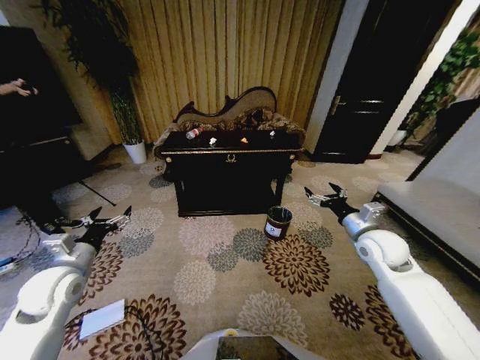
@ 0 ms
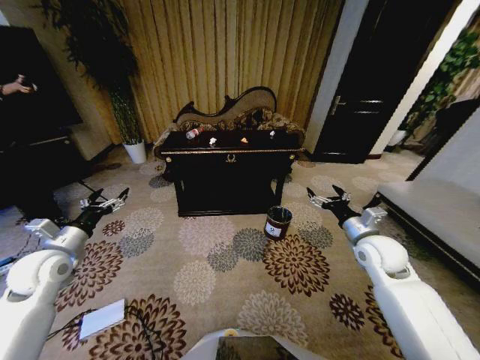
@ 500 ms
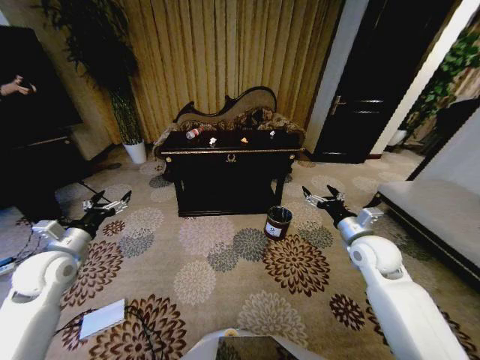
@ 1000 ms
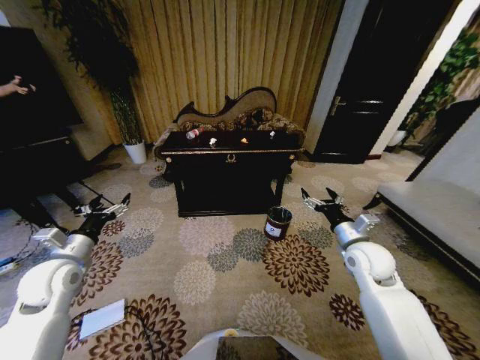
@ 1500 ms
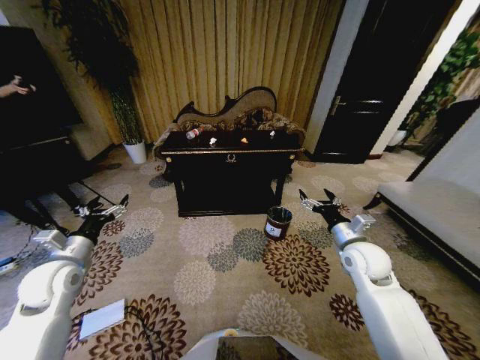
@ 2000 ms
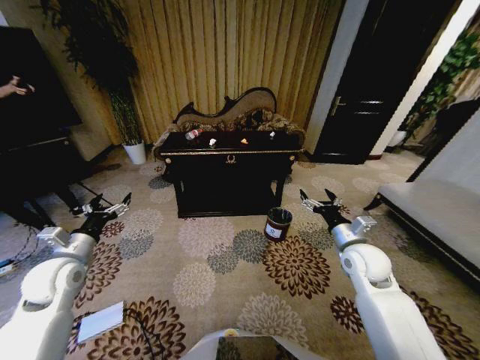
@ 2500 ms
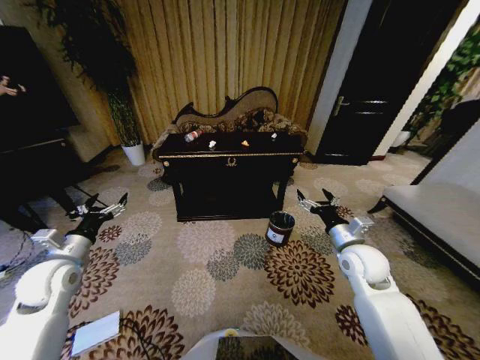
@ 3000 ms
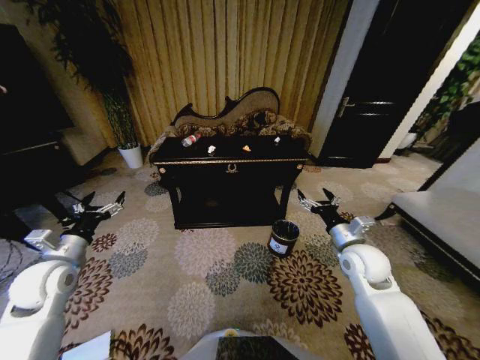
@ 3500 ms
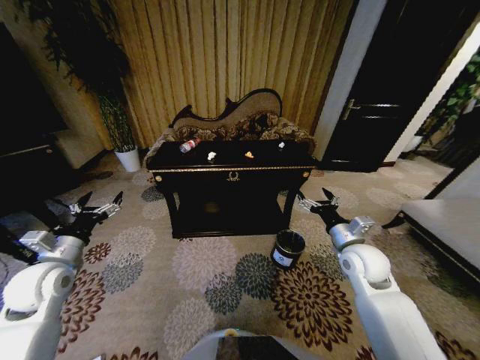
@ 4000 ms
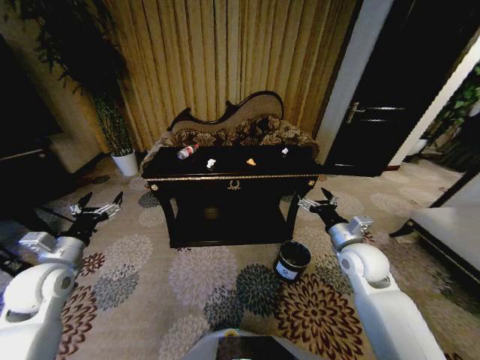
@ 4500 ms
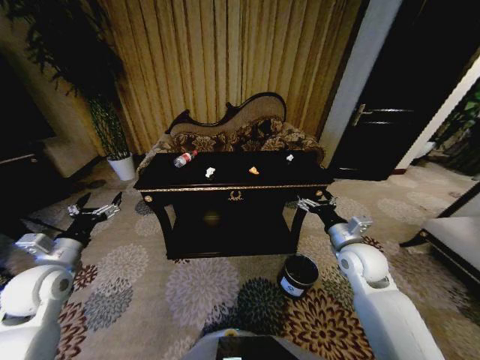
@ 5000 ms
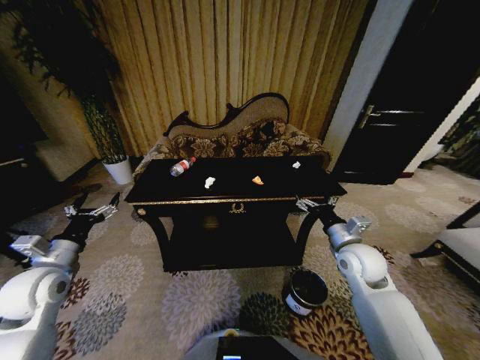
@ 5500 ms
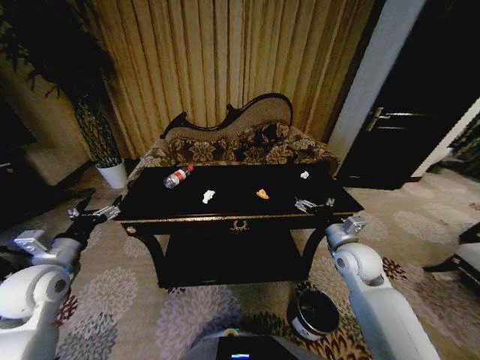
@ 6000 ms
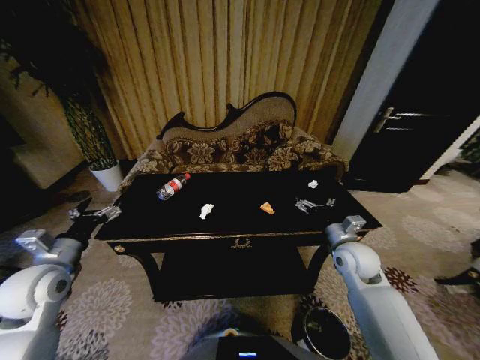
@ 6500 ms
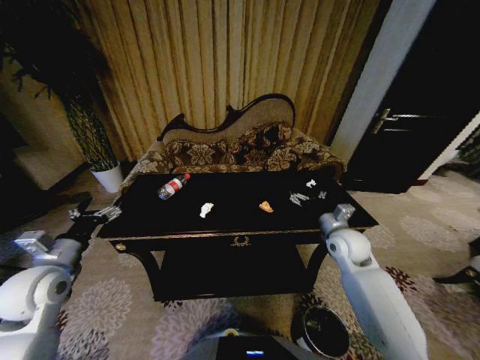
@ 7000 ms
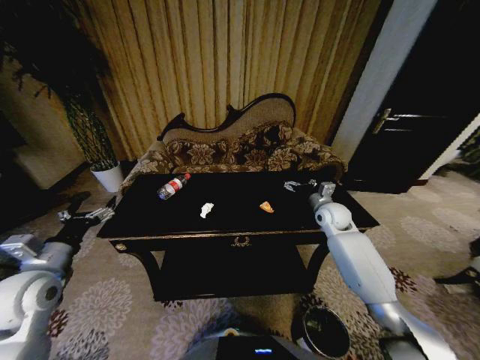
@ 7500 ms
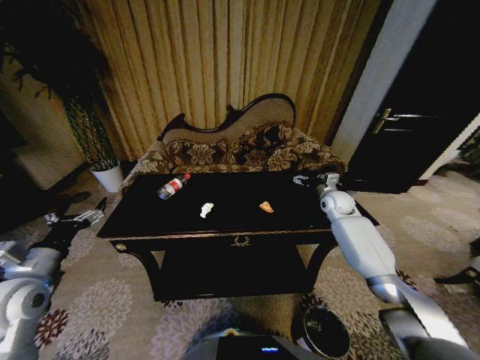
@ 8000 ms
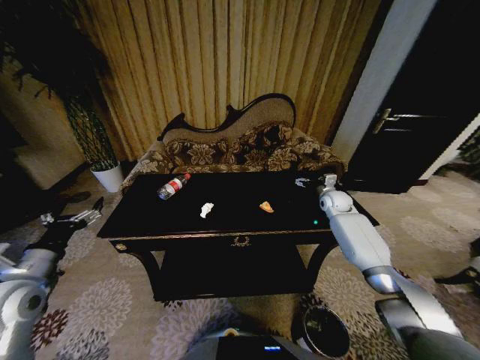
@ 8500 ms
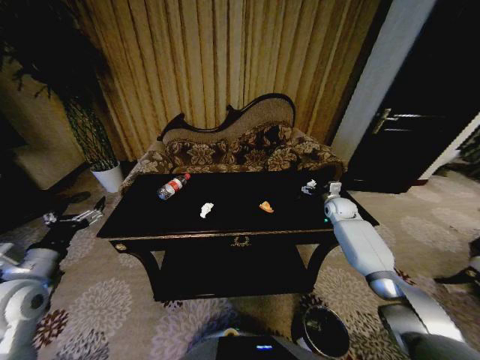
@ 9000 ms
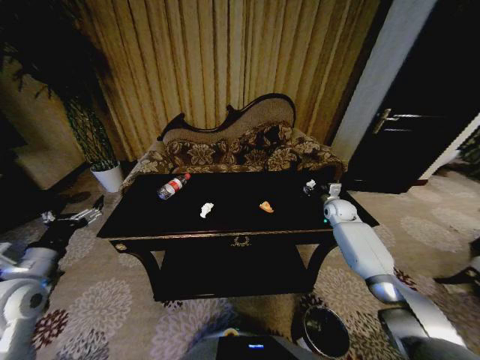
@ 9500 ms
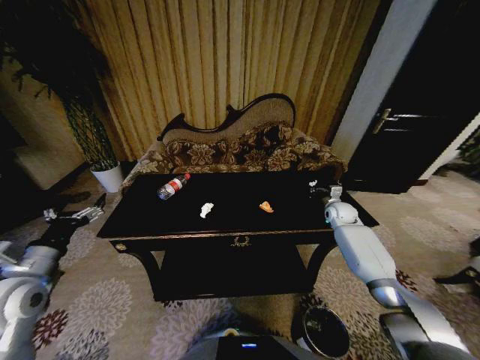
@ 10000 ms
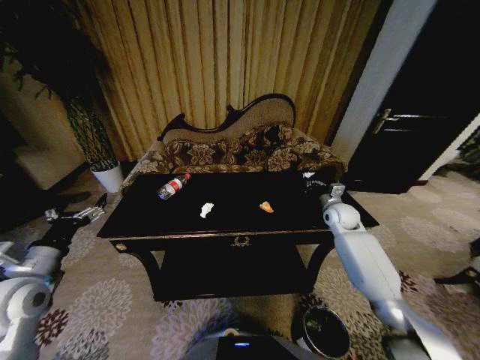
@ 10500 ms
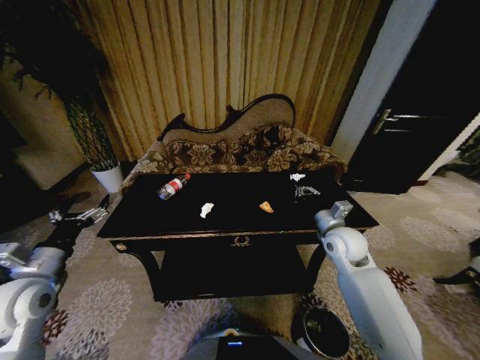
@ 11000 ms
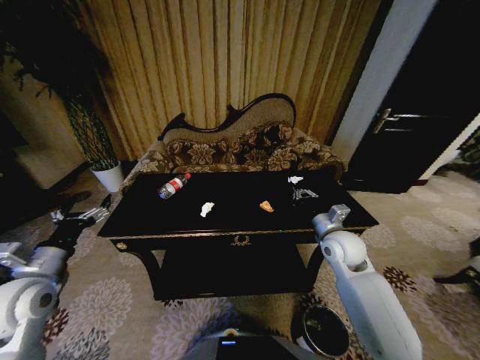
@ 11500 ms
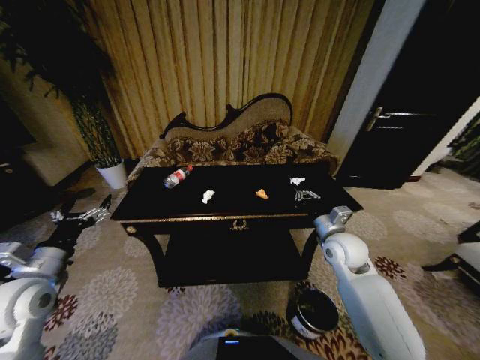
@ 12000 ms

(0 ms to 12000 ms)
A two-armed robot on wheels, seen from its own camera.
Task of the whole recording: Move to the front of the table and place the trash on the table into the trash bin.
6000 ms - 8000 ms: The right gripper goes approximately 20 cm forward.
8000 ms - 10000 ms: The right gripper is displaced downward by roughly 5 cm, and closes up.
10000 ms - 12000 ms: The right gripper travels backward and to the left by about 20 cm.

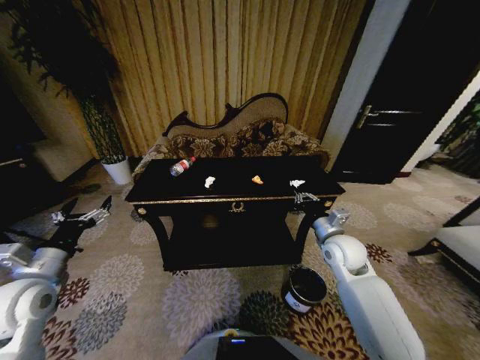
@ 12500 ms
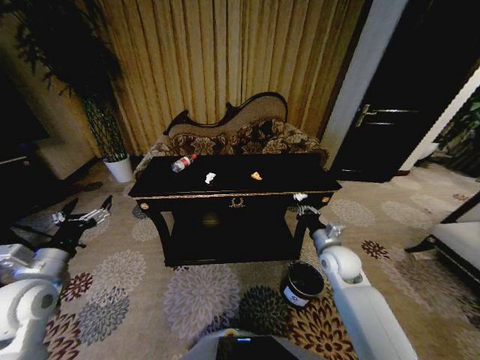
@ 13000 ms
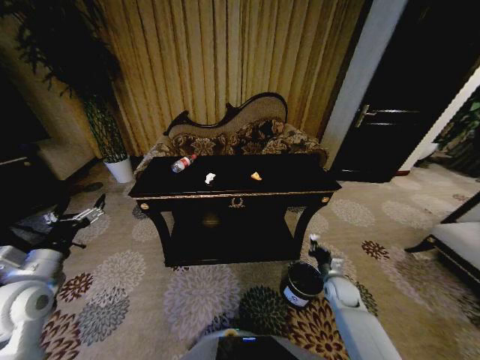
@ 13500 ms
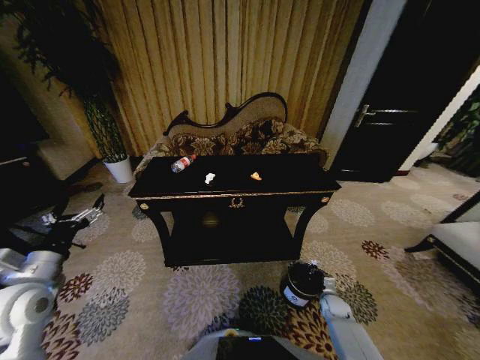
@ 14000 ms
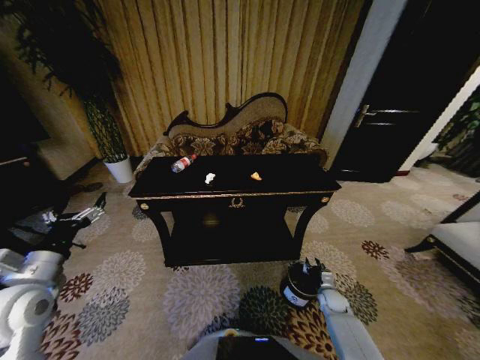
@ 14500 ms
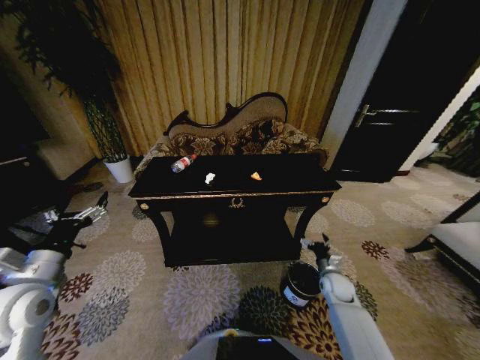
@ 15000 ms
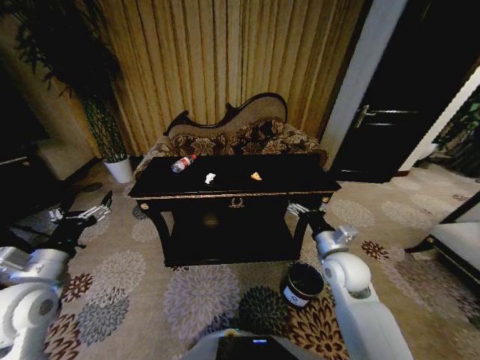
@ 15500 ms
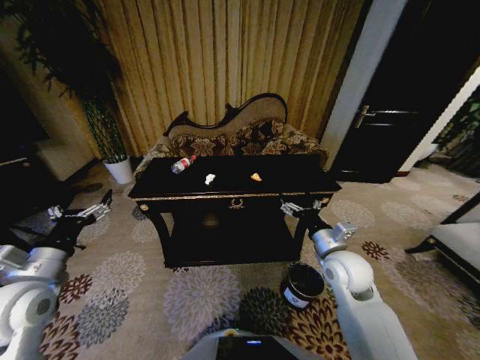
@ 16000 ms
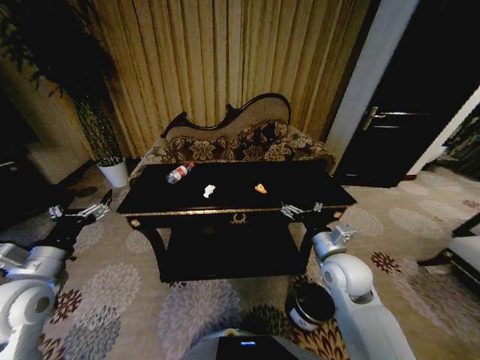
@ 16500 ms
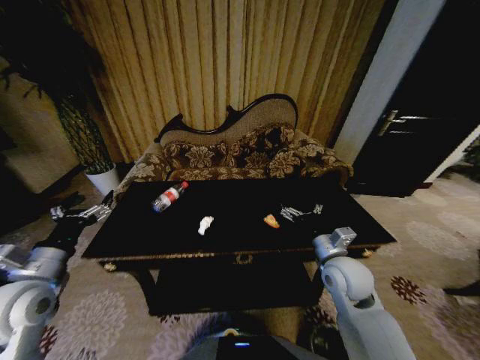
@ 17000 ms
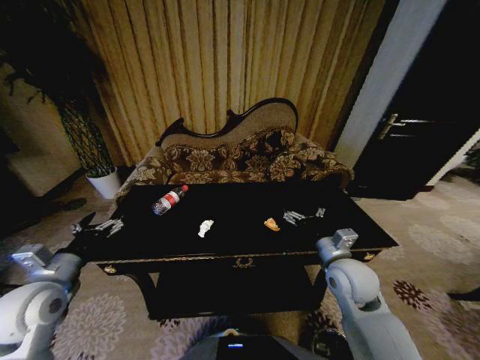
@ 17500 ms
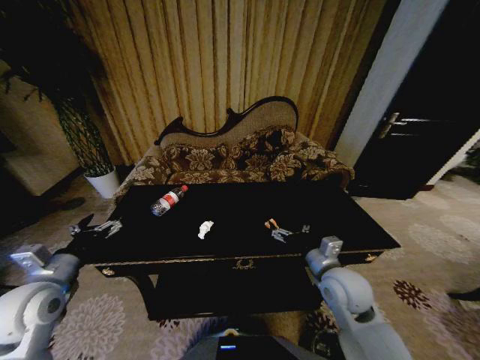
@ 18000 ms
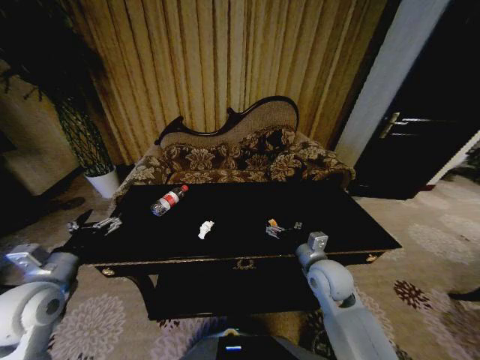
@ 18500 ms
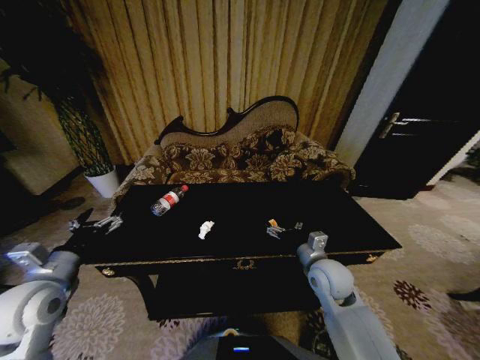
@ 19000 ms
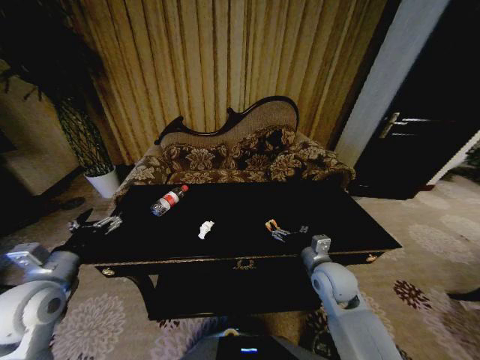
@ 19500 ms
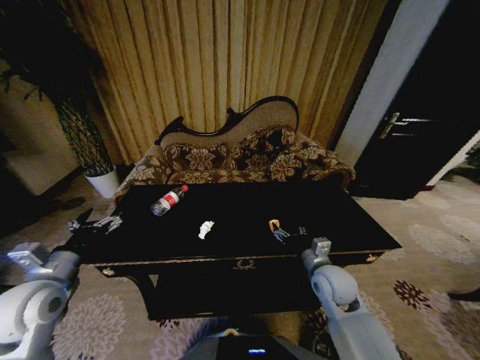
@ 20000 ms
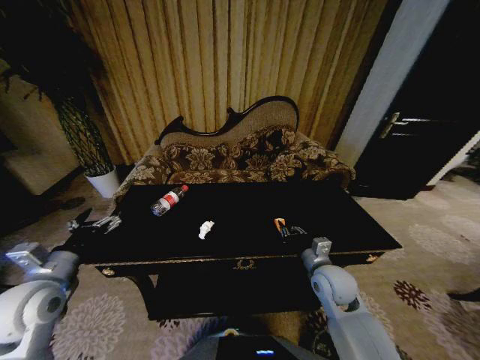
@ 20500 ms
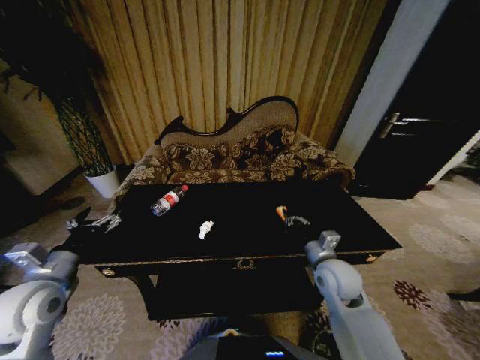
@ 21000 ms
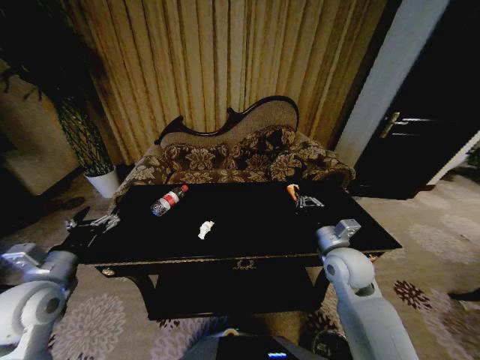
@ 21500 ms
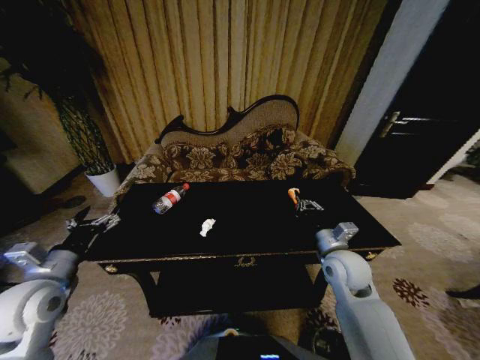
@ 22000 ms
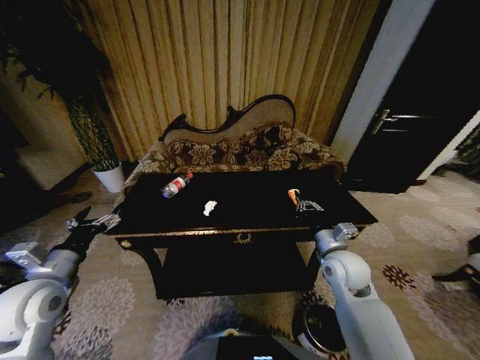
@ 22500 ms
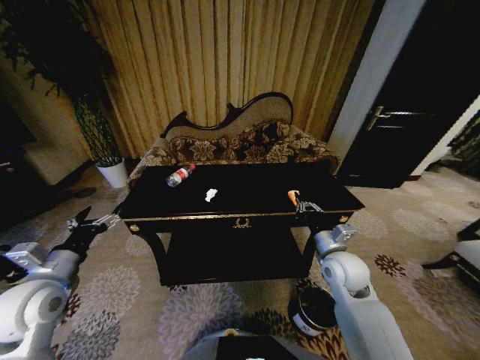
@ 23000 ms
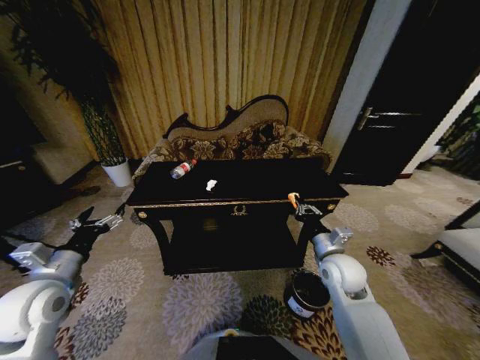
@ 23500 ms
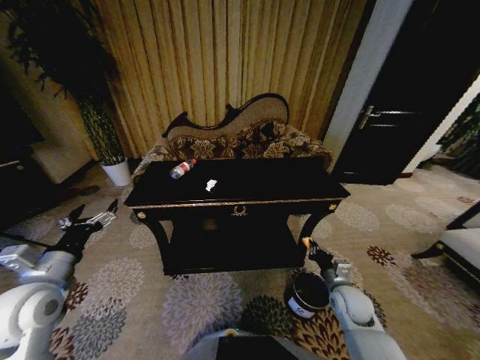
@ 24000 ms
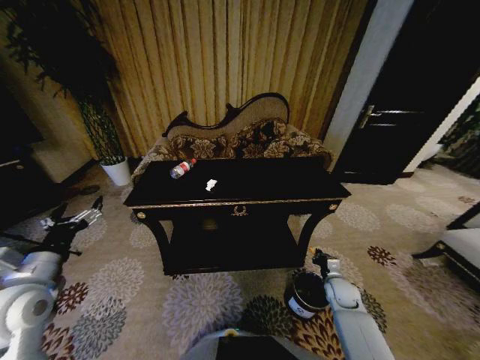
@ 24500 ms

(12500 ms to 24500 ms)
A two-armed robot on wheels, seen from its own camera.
Task of the whole recording: Move to the front of the table and place the trash on the table into the trash bin.
12500 ms - 14500 ms: The right gripper shifts some 30 cm downward, and opens.
14500 ms - 16500 ms: The right gripper heads upward, covering roughly 30 cm, and opens up.
18500 ms - 20500 ms: The right gripper closes up.
20500 ms - 22500 ms: The right gripper shifts by some 5 cm.
22500 ms - 24500 ms: The right gripper heads downward and to the right, covering roughly 25 cm.

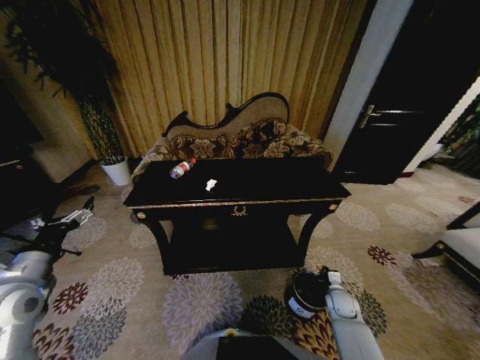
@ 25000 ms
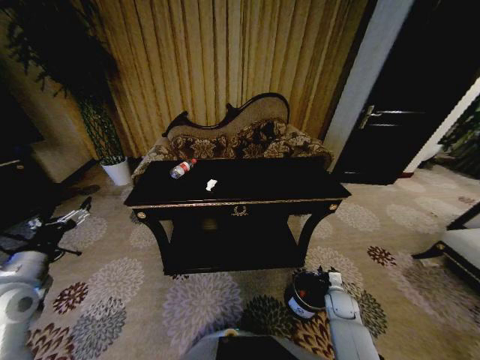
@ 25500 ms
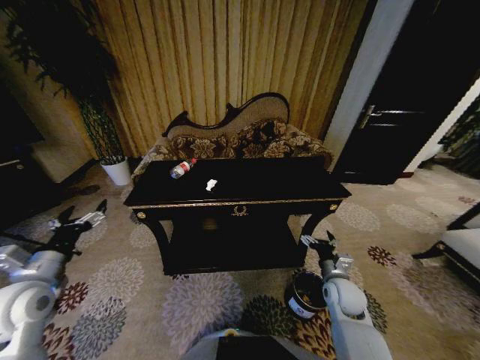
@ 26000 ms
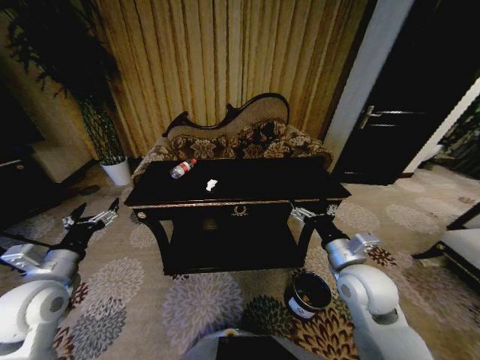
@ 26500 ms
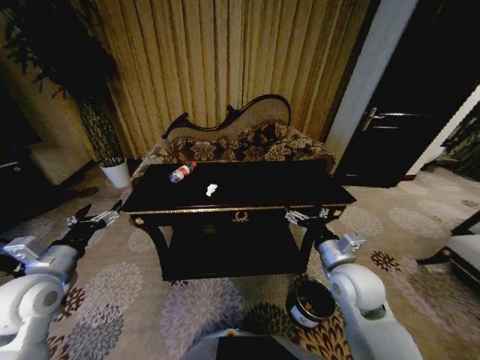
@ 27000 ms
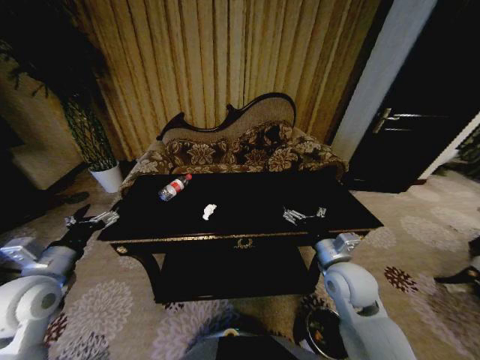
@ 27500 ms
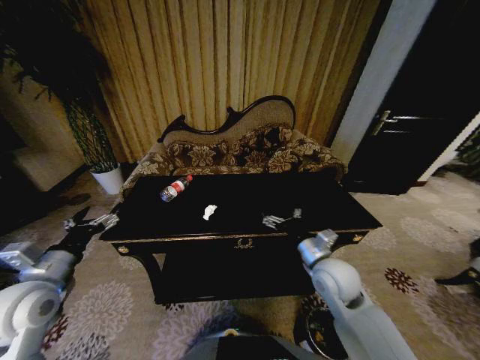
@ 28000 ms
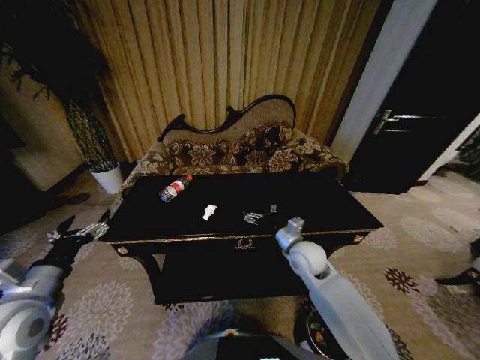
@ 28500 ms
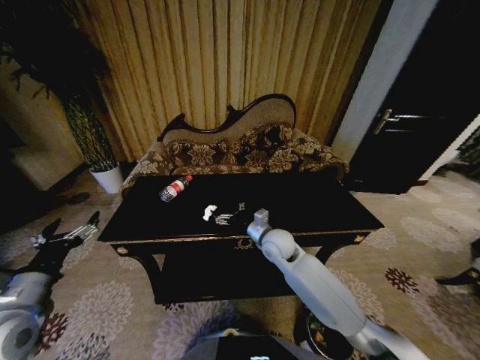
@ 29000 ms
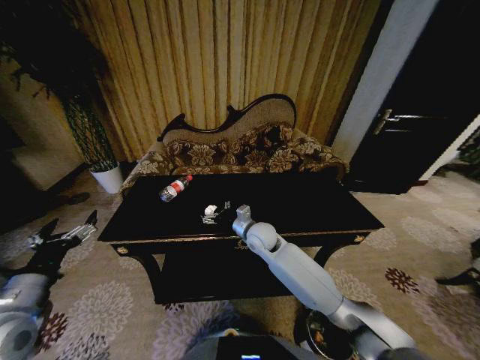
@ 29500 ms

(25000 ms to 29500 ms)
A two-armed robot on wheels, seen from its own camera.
Task of the whole recording: Move to the front of the table and place the trash on the table into the trash bin.
25000 ms - 27000 ms: The right gripper travels upward and to the left by roughly 30 cm, and opens.
27000 ms - 29500 ms: The left gripper shifts some 5 cm backward. Meanwhile the right gripper shifts some 25 cm to the left and forward.
